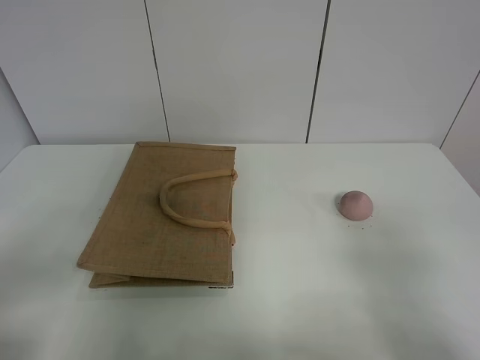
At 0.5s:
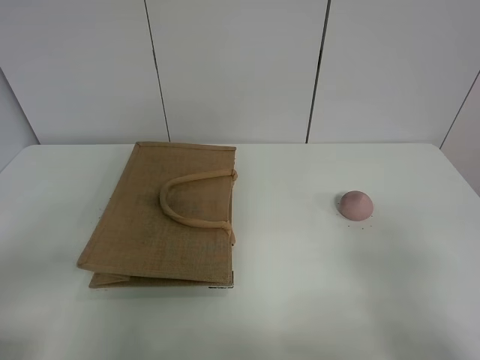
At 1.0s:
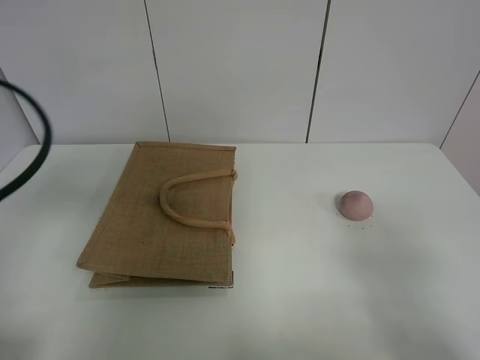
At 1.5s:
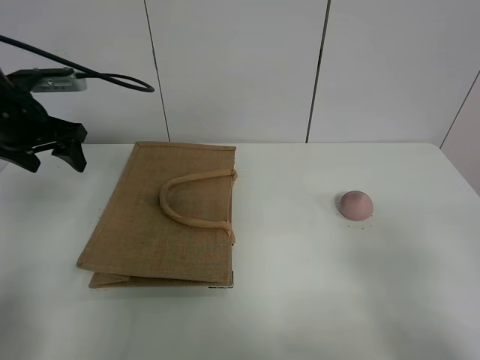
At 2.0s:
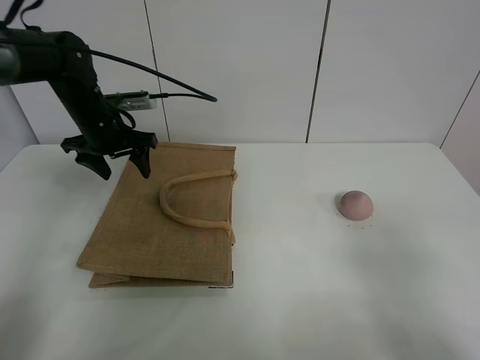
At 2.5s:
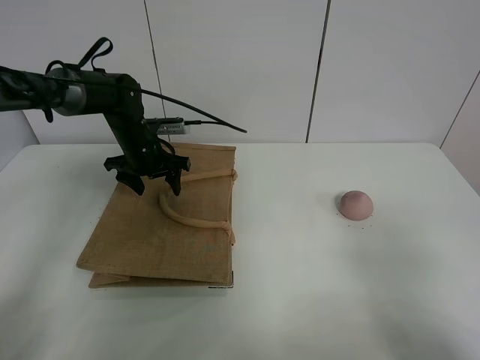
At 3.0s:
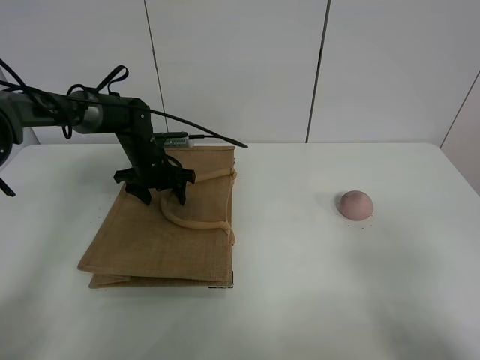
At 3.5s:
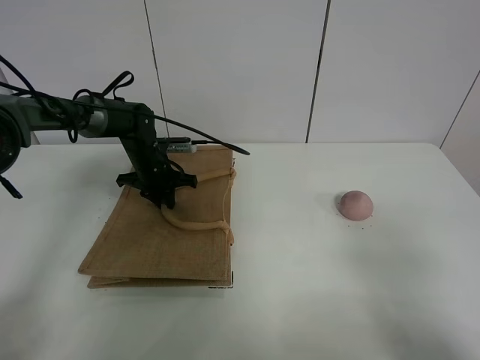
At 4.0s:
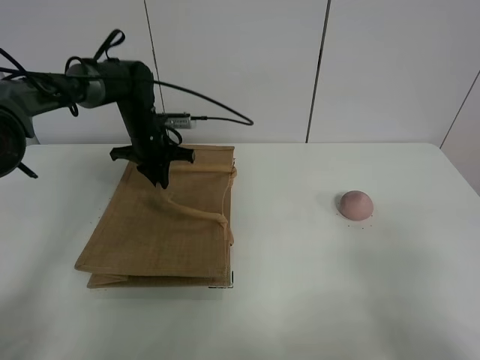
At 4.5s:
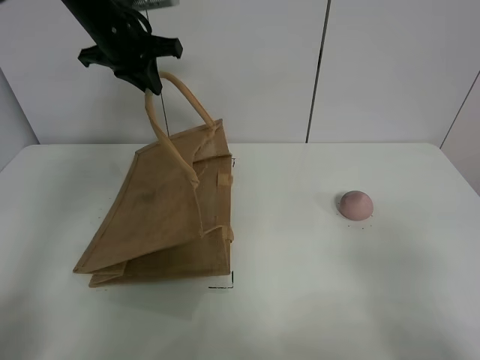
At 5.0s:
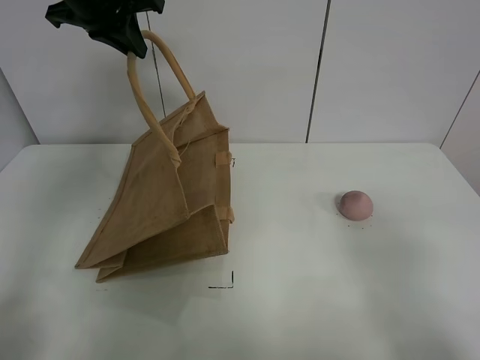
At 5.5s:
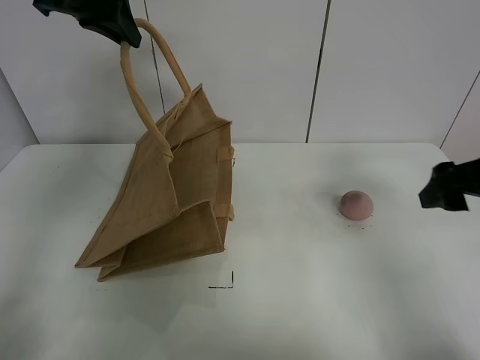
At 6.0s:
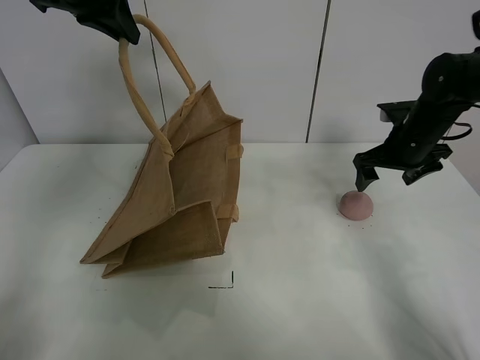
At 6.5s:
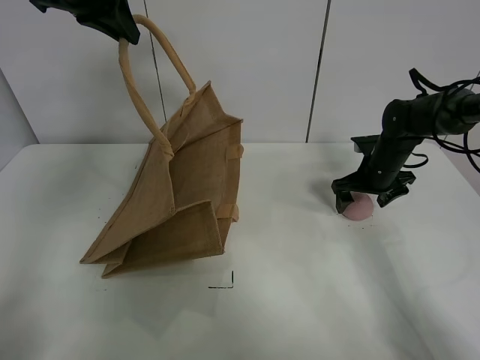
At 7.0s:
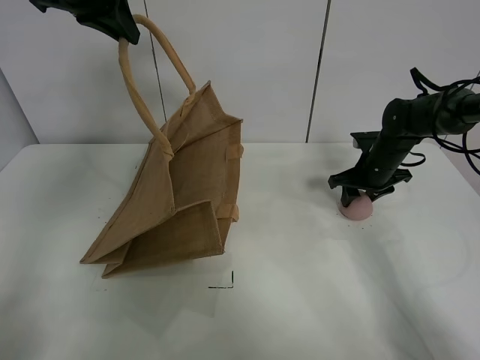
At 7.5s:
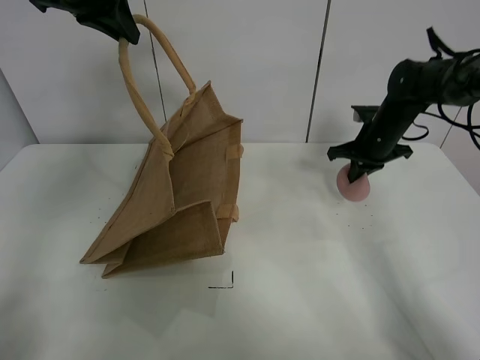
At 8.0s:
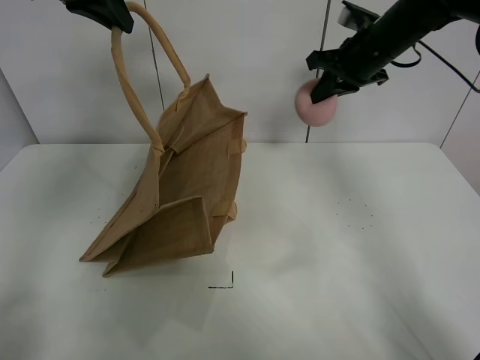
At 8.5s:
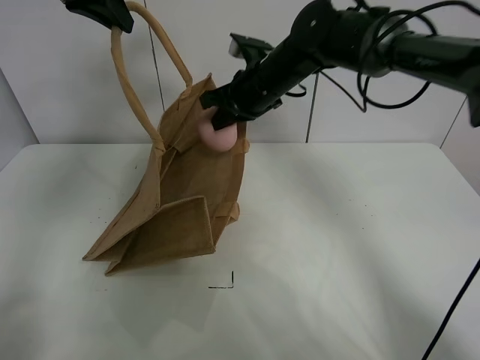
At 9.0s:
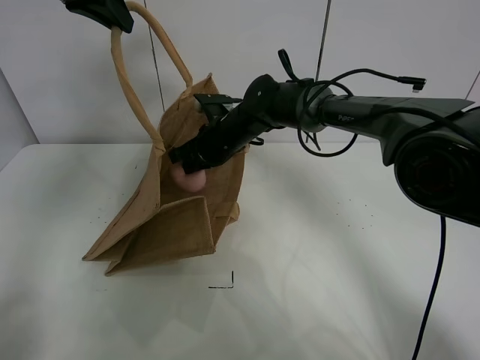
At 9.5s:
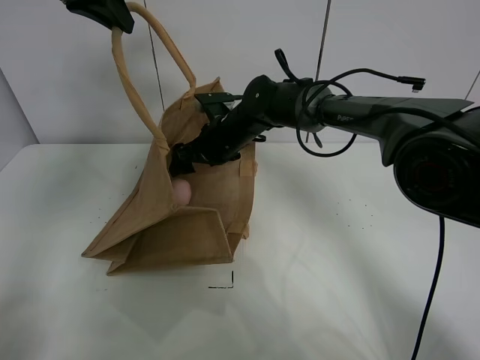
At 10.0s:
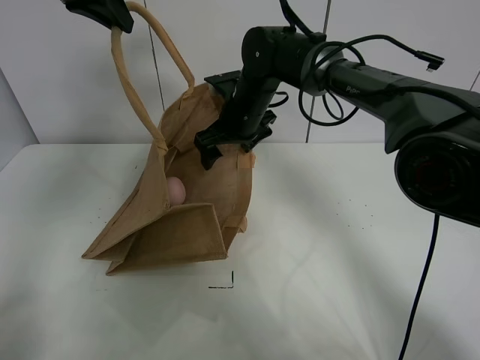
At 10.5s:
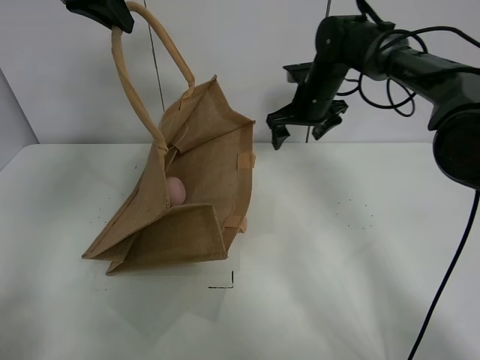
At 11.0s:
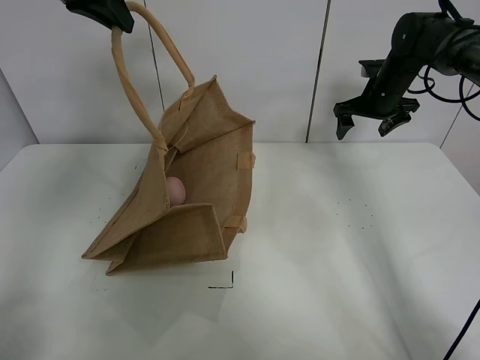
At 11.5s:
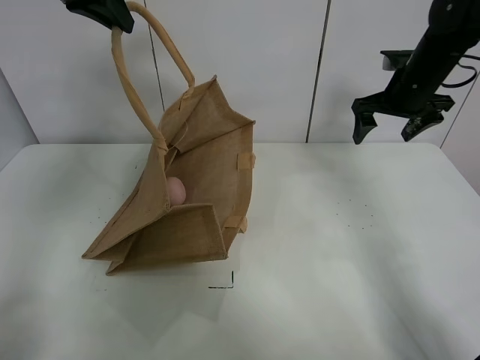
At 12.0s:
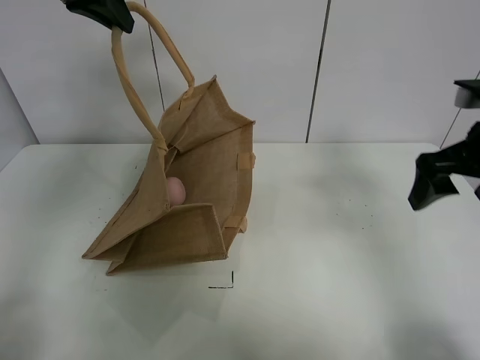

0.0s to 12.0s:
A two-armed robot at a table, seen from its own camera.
Task of the whole recording: open the brown linen bag and put the peach in the bag.
Step, 0.0s to 4.5s: Lift the handbag with left gripper.
Step, 5.0s to 7.0s: Grasp the peach with right gripper.
Step, 7.5s to 10.0s: Place the peach in the handbag with right gripper.
0.0s to 2.0s: The left gripper shifts approximately 40 cm forward.
2.0s to 4.0s: The left gripper goes approximately 5 cm downward, and closes up.
4.0s to 6.0s: The left gripper heads upward, covering about 25 cm. Meanwhile the right gripper heads forward, covering about 40 cm.
6.0s to 8.0s: The right gripper shifts roughly 15 cm upward and to the left, and closes up.
8.0s to 10.0s: The right gripper goes approximately 20 cm to the left and downward, and opens its fingers.
10.0s to 12.0s: The right gripper shifts roughly 35 cm to the right and backward.

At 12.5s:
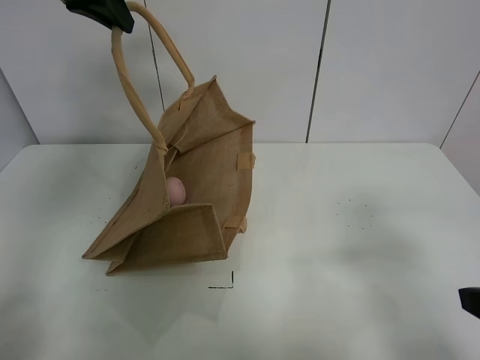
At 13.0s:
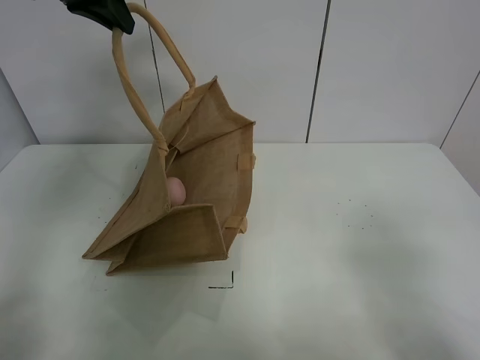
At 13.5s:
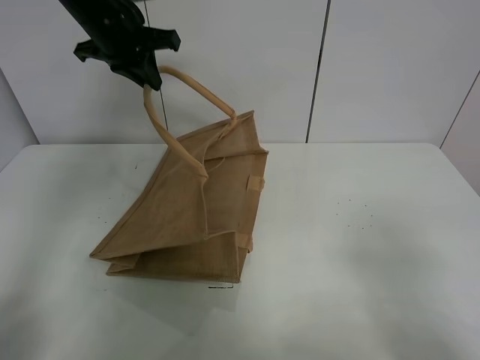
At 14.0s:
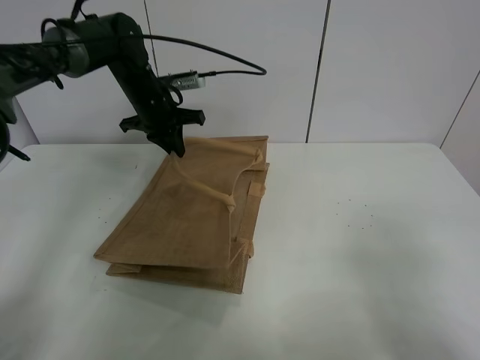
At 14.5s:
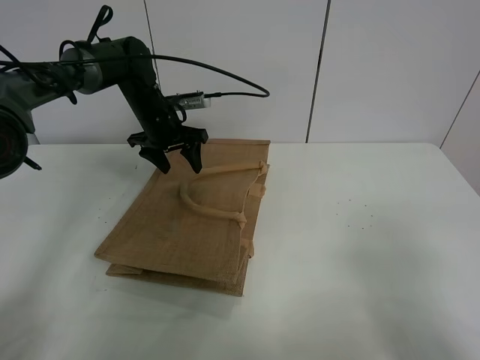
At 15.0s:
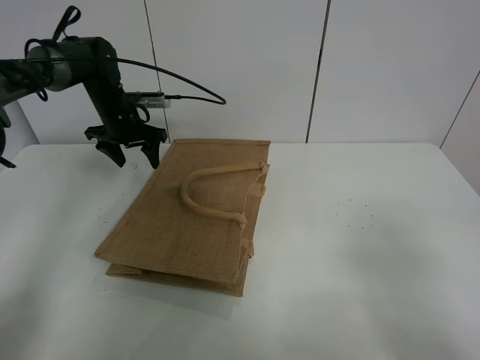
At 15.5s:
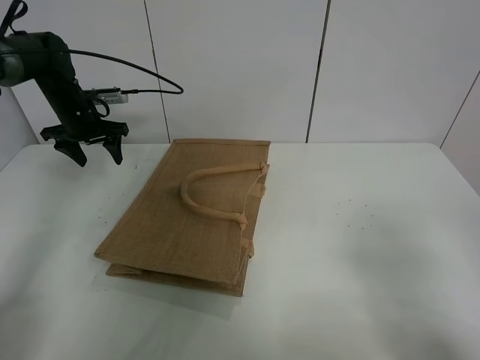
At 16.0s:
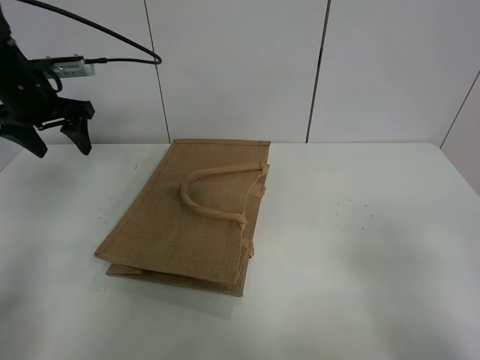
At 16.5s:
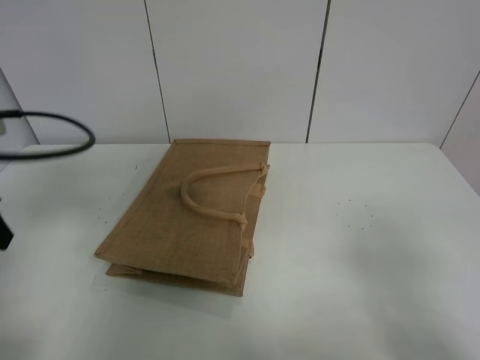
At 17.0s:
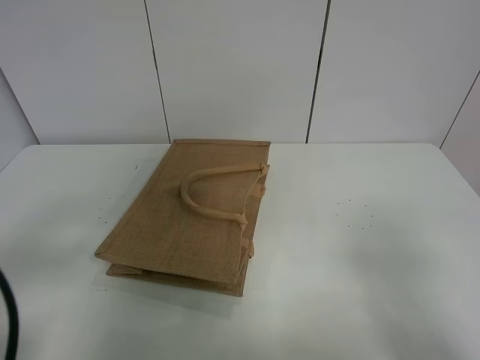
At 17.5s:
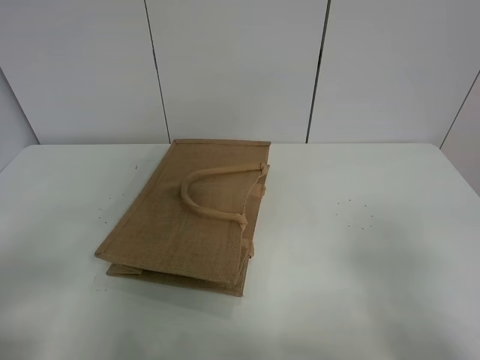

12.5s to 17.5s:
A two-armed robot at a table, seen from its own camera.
Task of the whole recording: open the brown linen bag and put the peach in the bag.
Step, 12.5s to 15.0s: Put down the handbag with left grippe.
12.5s to 15.0s: The right gripper is displaced backward by about 5 cm, while the left gripper heads downward and forward, covering roughly 30 cm, and opens its fingers.
15.0s to 17.5s: The left gripper moves backward, approximately 50 cm.
